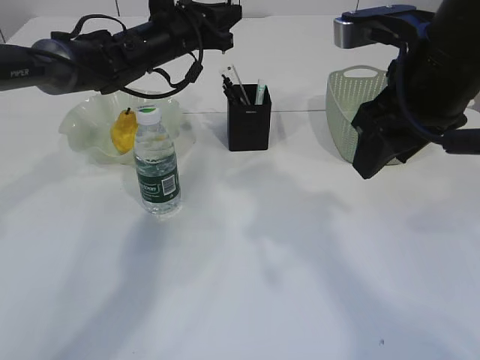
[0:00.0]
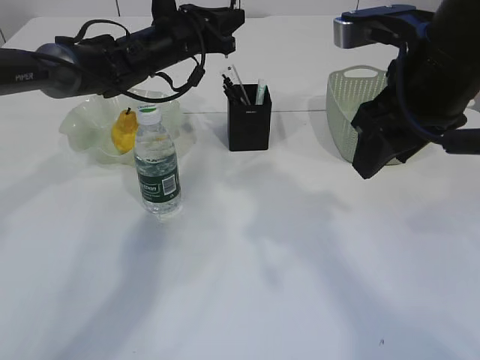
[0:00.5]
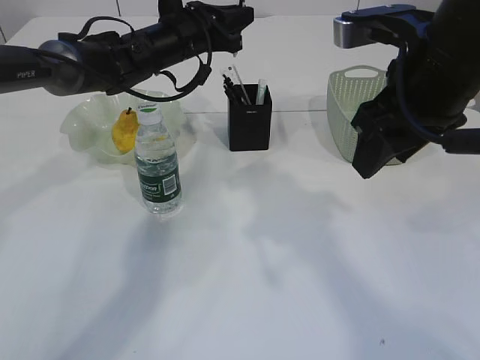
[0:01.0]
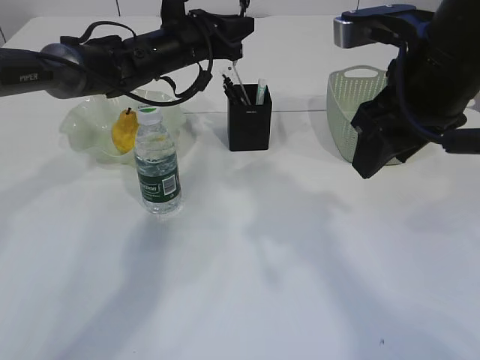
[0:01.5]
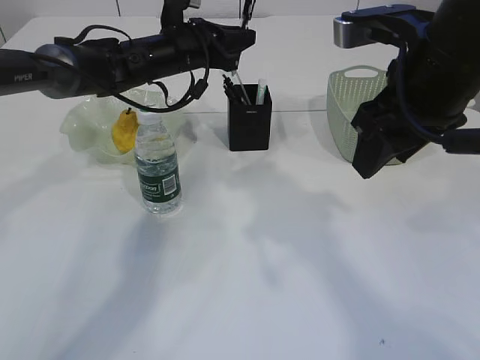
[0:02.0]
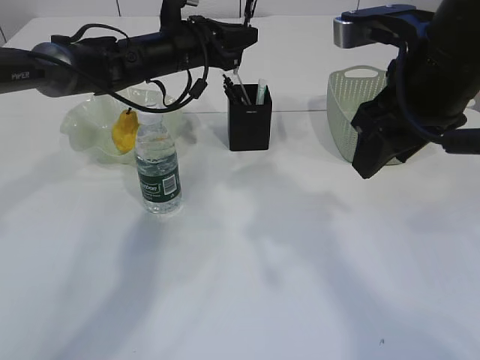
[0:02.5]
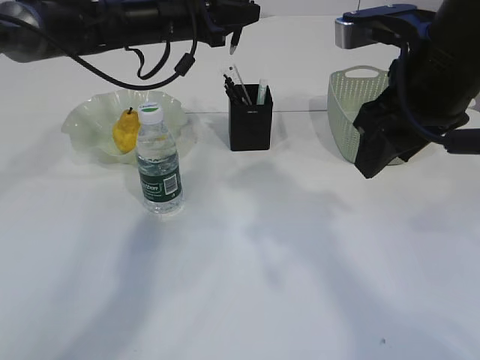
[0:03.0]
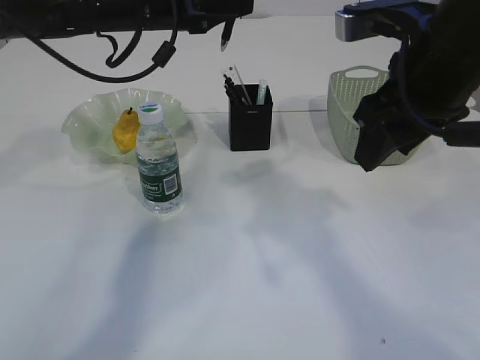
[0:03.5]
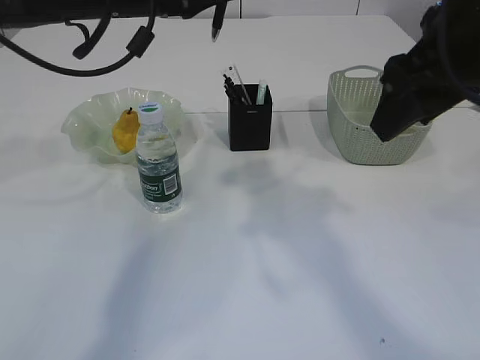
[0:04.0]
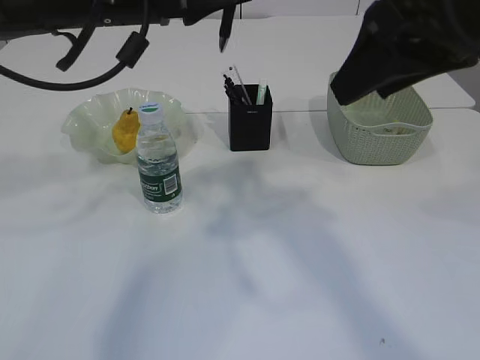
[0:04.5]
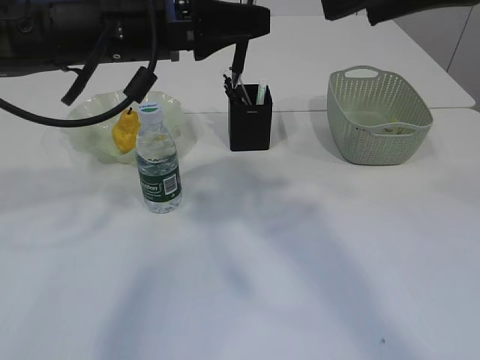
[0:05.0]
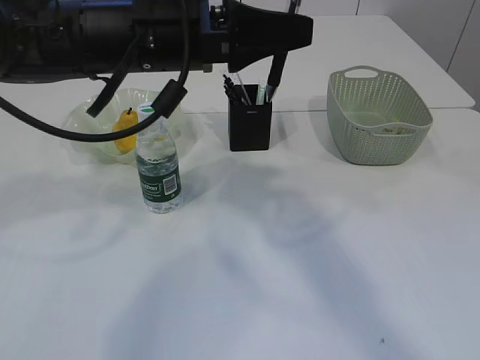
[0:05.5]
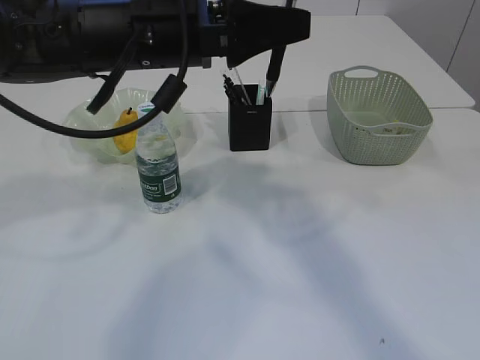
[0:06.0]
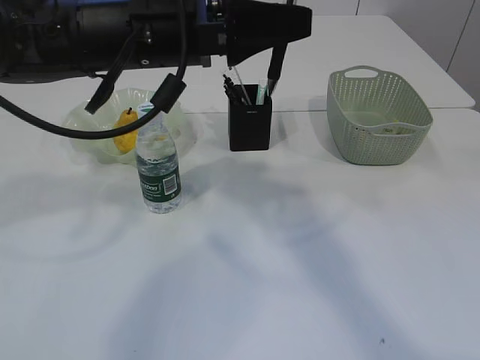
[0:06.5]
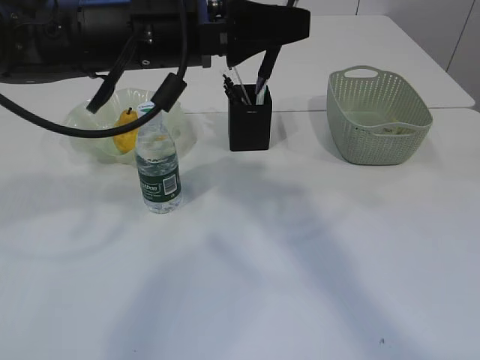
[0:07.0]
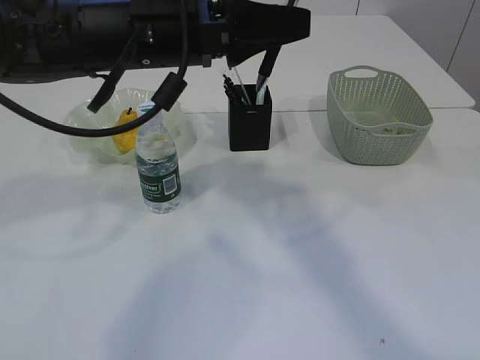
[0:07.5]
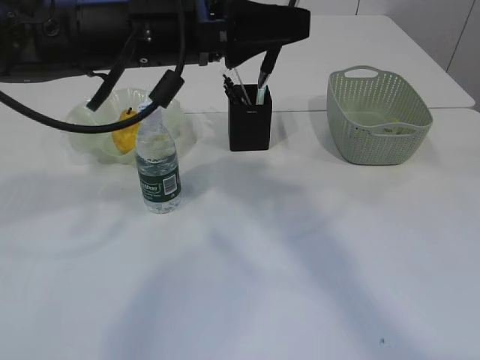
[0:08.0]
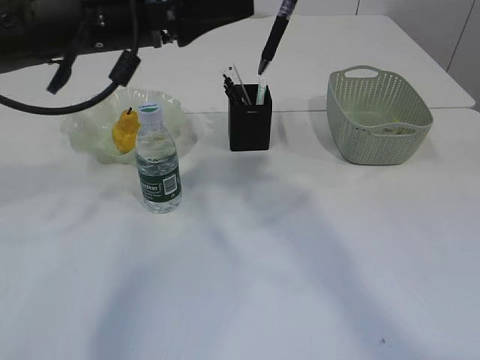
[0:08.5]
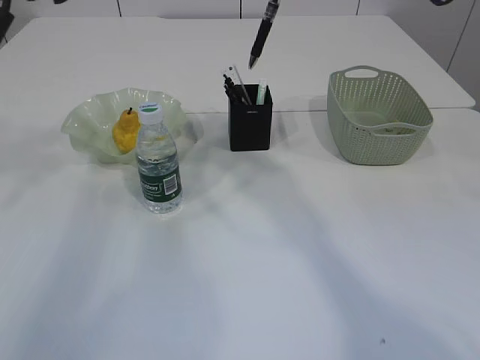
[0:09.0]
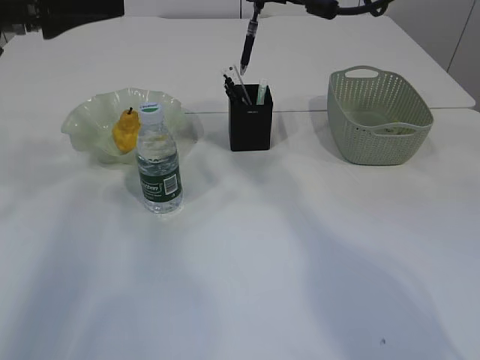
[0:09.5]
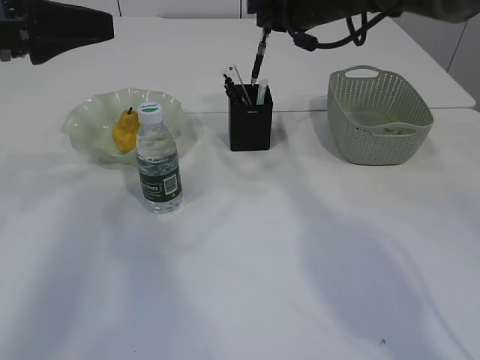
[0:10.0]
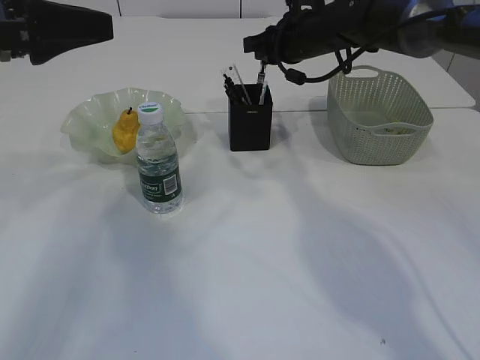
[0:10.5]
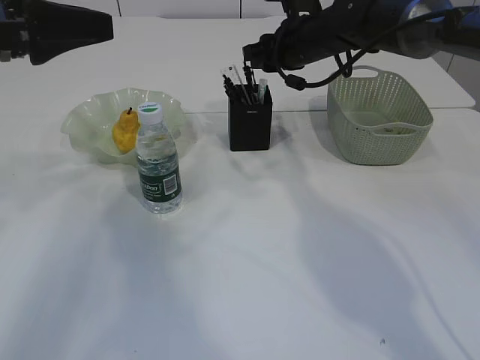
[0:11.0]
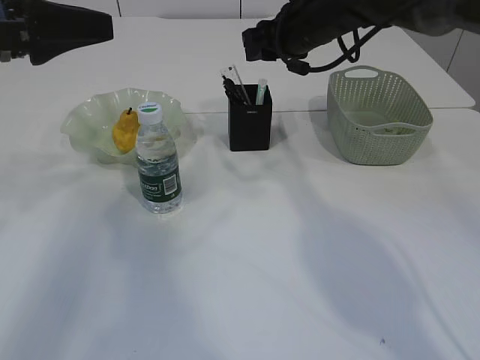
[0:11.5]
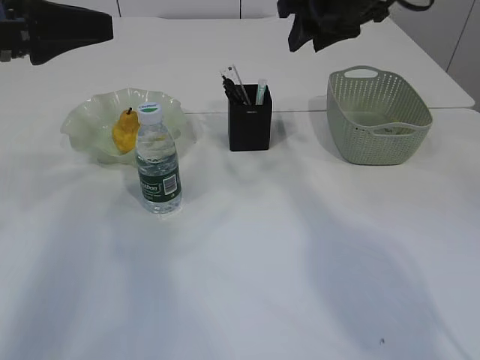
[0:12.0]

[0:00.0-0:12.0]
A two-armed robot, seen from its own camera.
0:00.0 to 0:02.0: The grippers stay close to where they were, moving slightly.
0:02.0 to 0:04.0: The left gripper travels upward and backward by roughly 15 cm.
0:04.0 to 0:06.0: The right gripper is displaced upward by roughly 5 cm; the left gripper goes approximately 10 cm backward.
0:06.0 to 0:08.0: The left gripper opens up; the right gripper closes.
0:08.0 to 0:10.0: The left gripper moves to the left, approximately 15 cm. The right gripper is displaced forward and downward by some 25 cm.
0:10.0 to 0:12.0: The right gripper goes downward and returns, approximately 5 cm each way, and opens up.

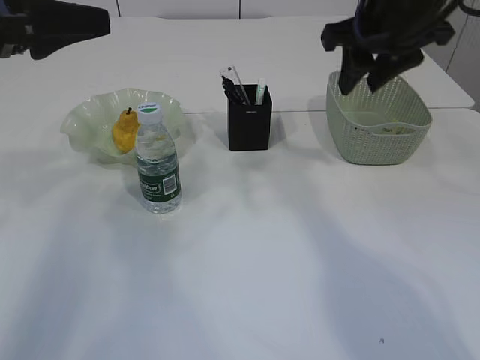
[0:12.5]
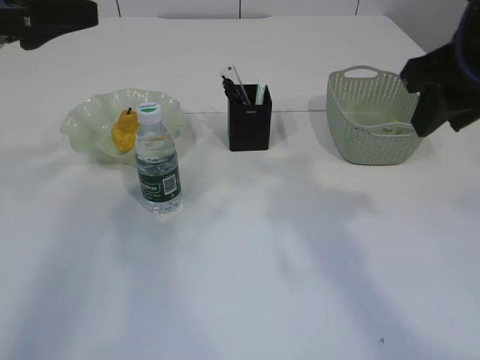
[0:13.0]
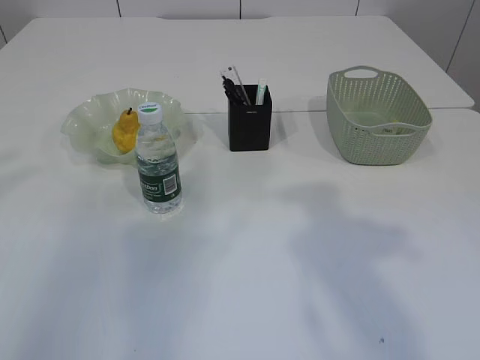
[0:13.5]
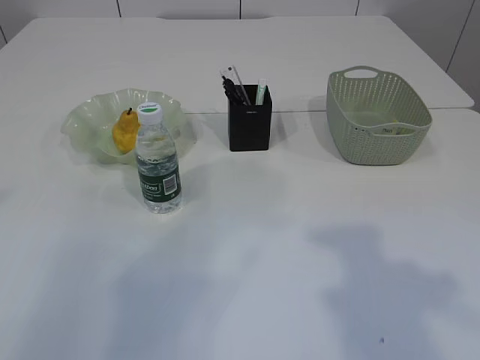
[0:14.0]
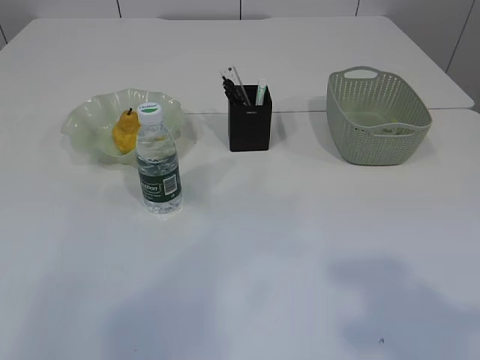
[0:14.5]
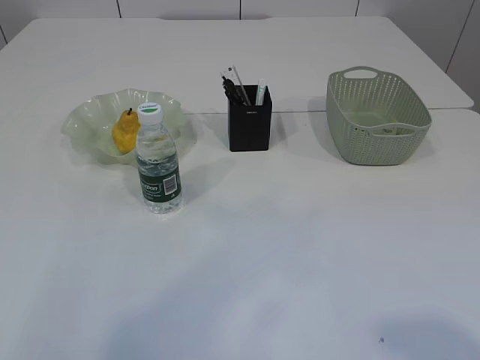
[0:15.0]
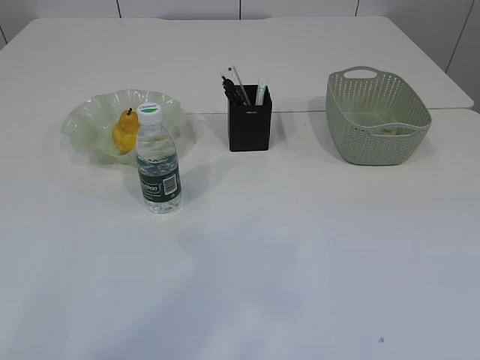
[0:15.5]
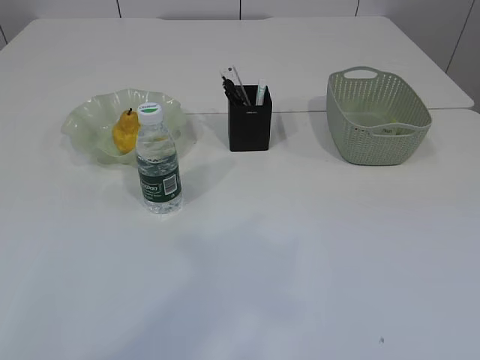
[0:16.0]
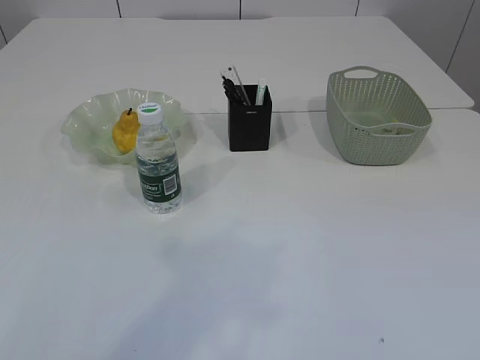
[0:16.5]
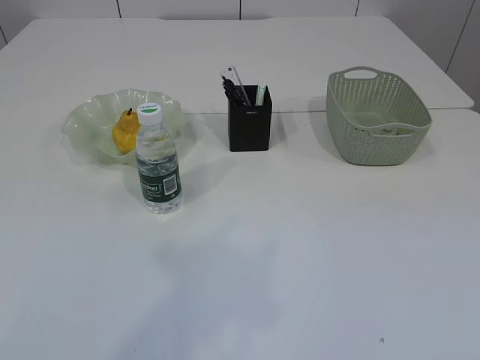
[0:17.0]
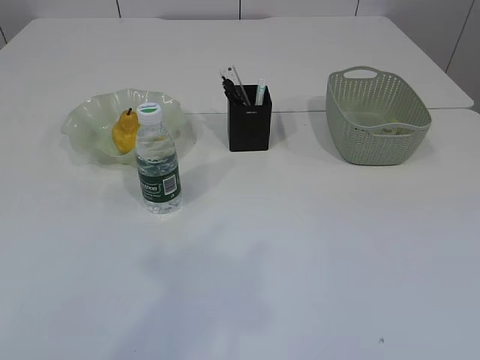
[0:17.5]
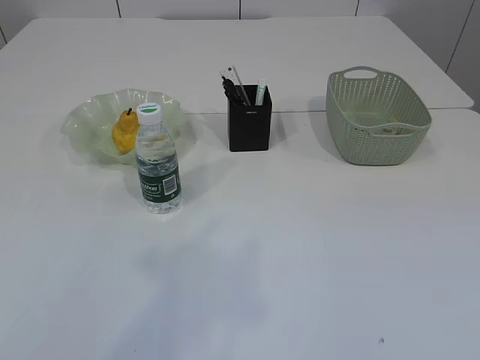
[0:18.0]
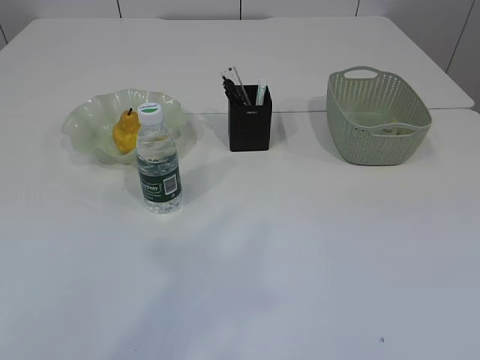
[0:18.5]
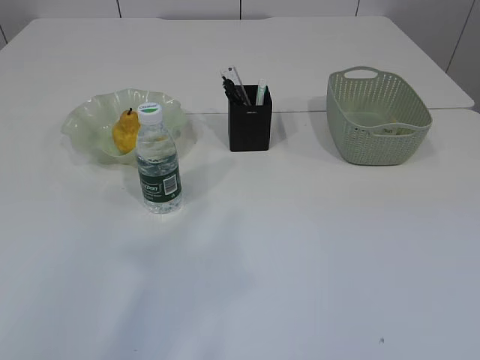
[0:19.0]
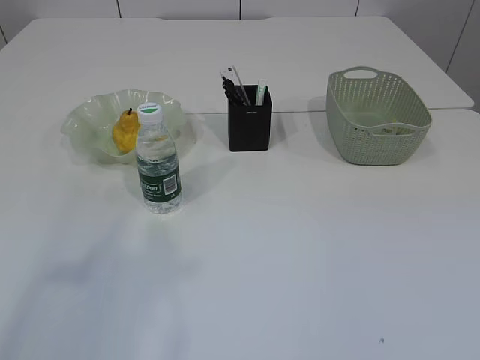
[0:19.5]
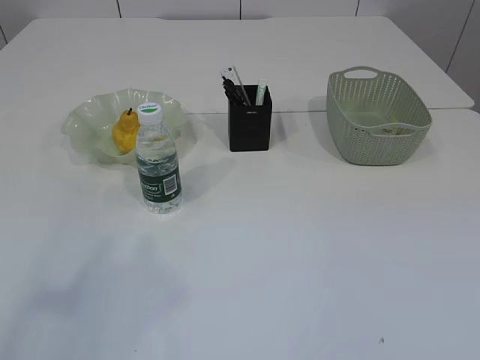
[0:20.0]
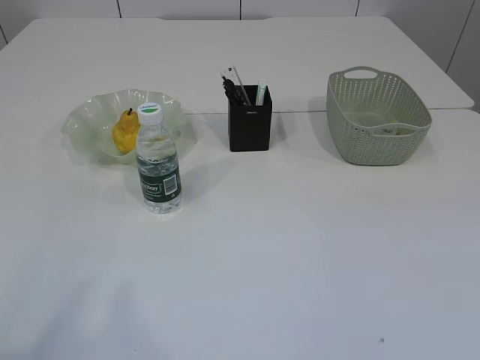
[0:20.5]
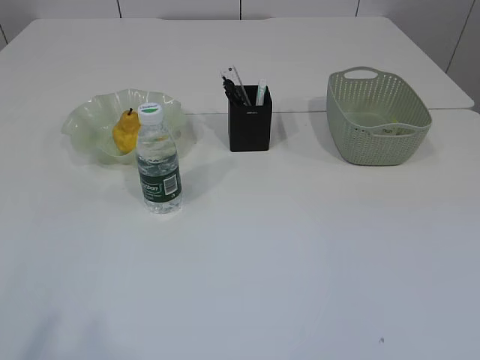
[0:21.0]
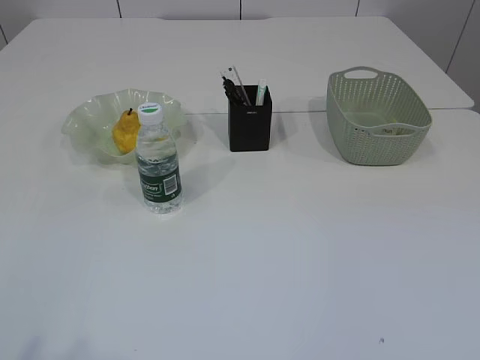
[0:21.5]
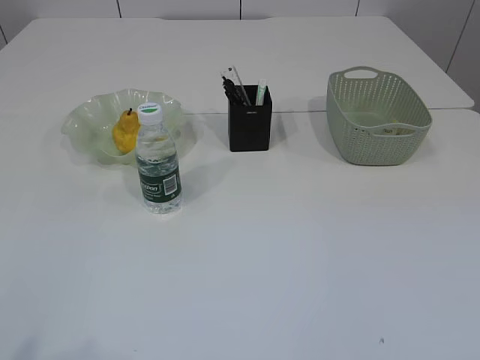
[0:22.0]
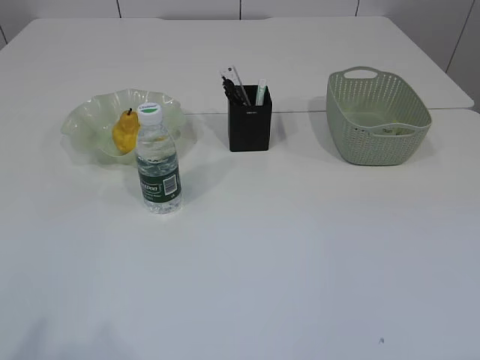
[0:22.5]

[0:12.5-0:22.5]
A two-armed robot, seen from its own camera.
0:12.5 to 0:14.5: The left gripper is displaced backward and upward by about 20 cm. The right gripper goes about 30 cm backward.
